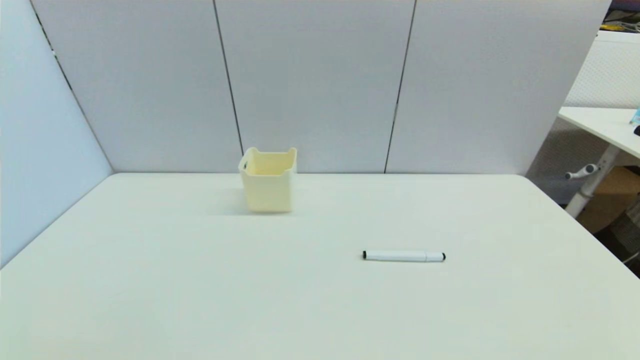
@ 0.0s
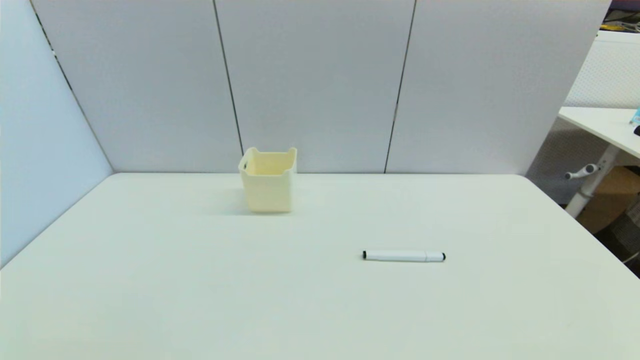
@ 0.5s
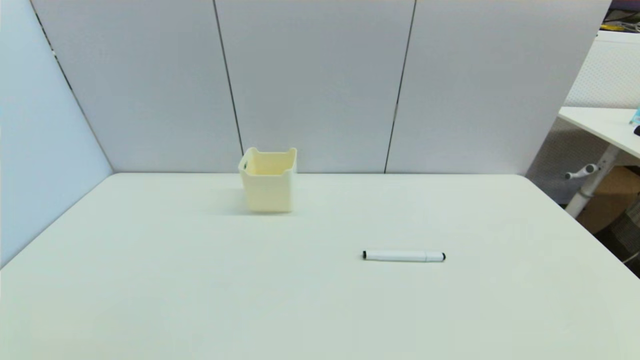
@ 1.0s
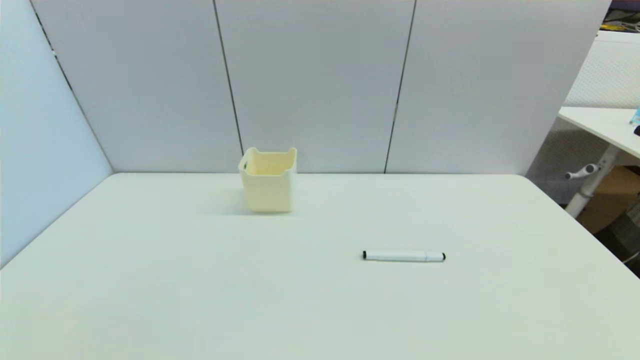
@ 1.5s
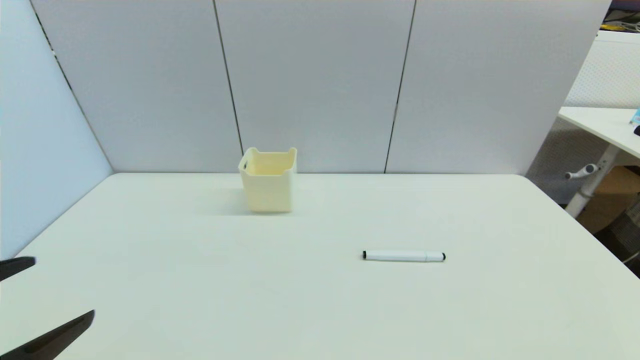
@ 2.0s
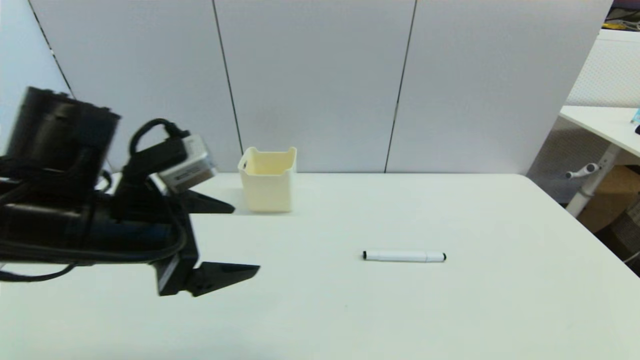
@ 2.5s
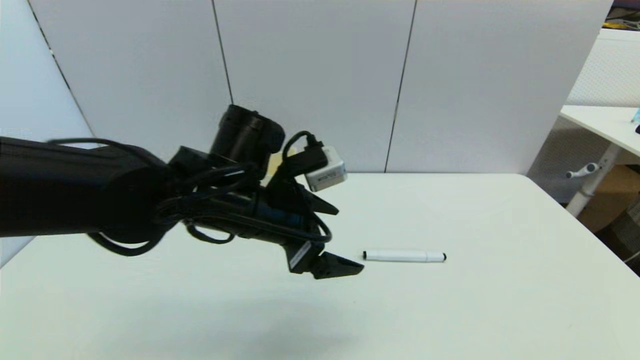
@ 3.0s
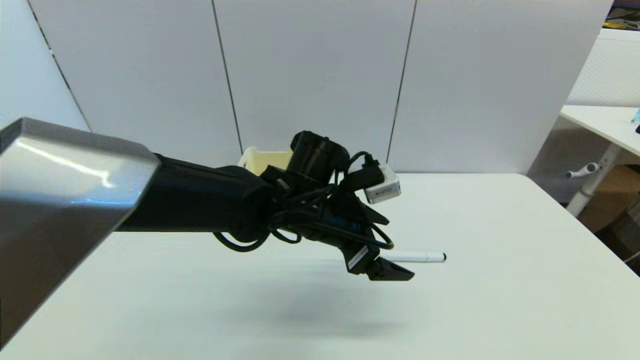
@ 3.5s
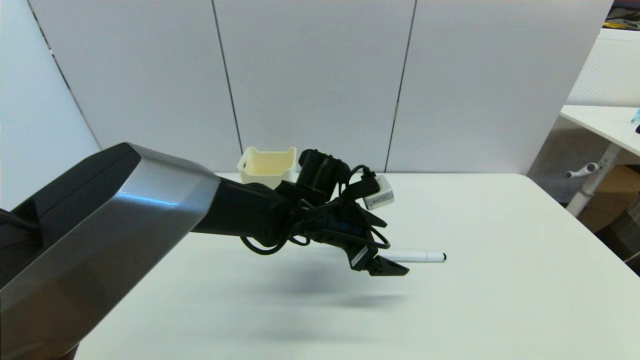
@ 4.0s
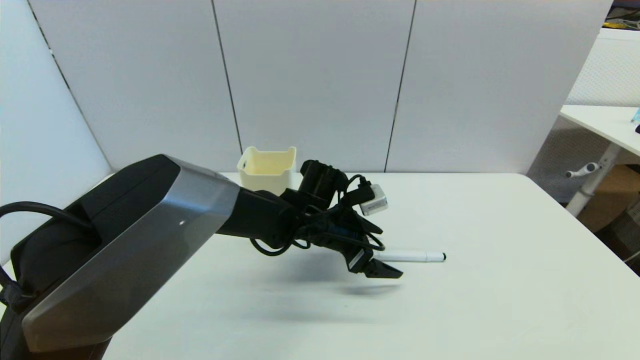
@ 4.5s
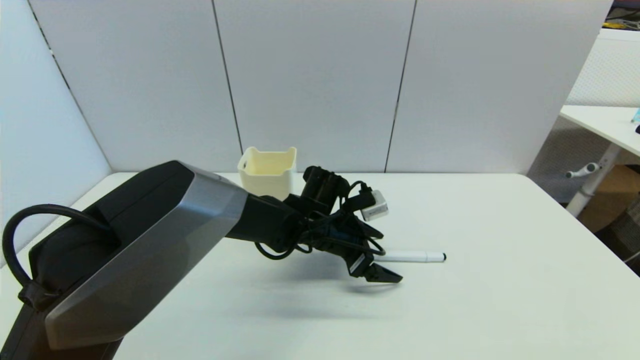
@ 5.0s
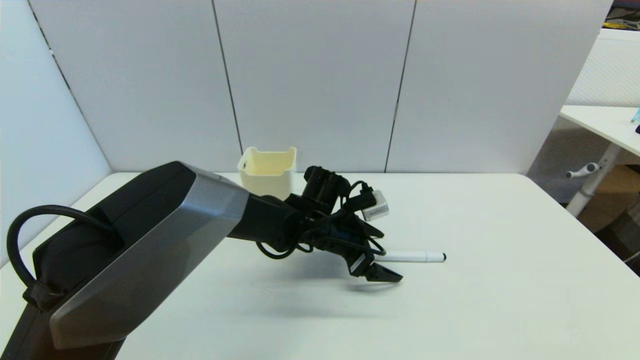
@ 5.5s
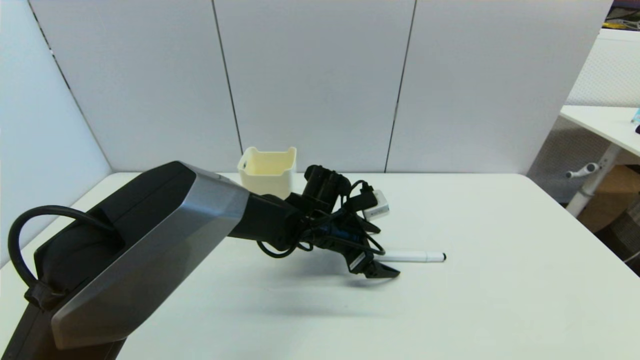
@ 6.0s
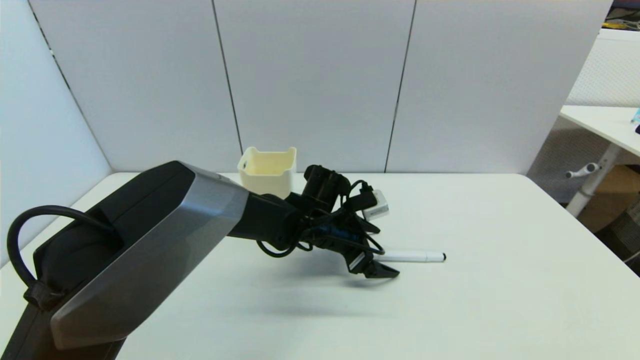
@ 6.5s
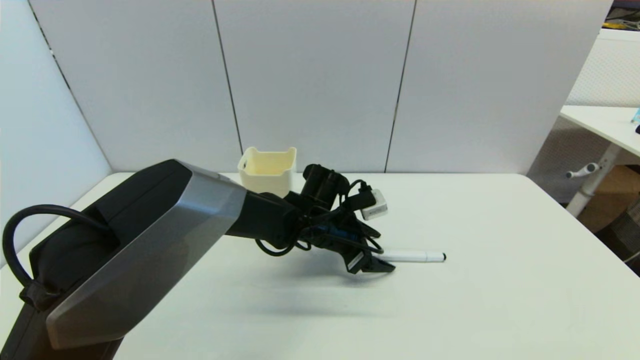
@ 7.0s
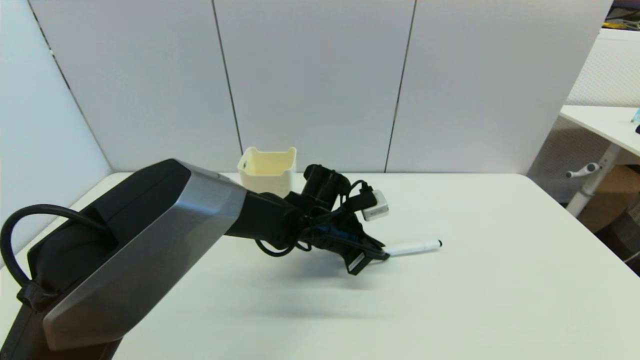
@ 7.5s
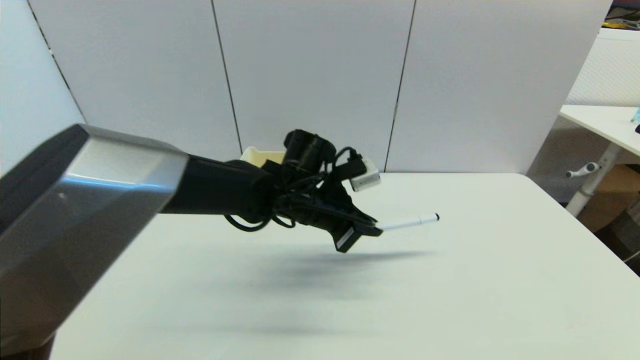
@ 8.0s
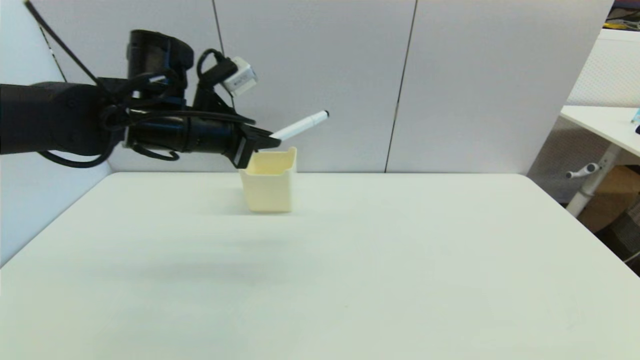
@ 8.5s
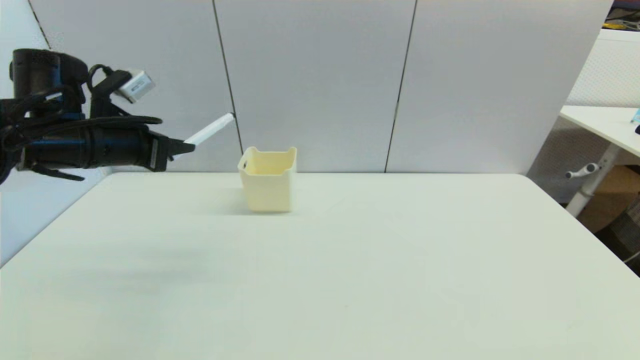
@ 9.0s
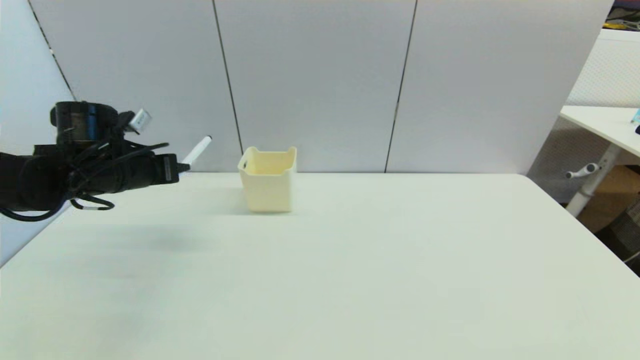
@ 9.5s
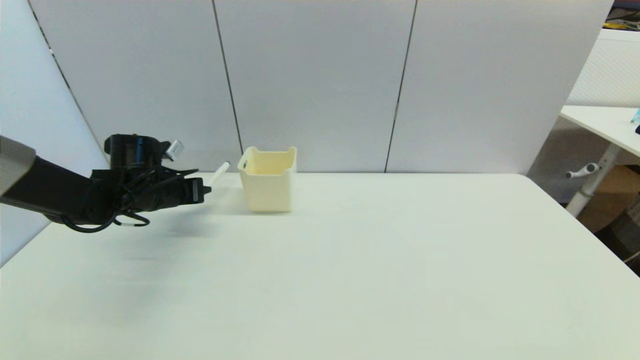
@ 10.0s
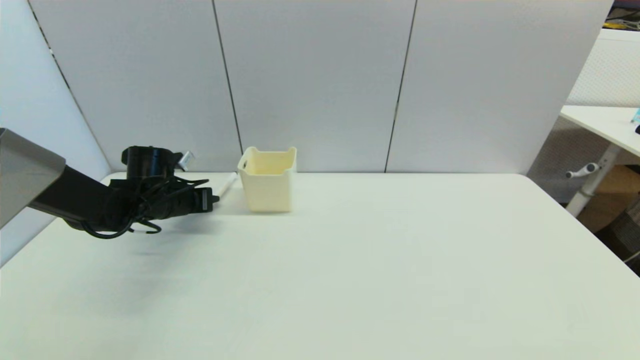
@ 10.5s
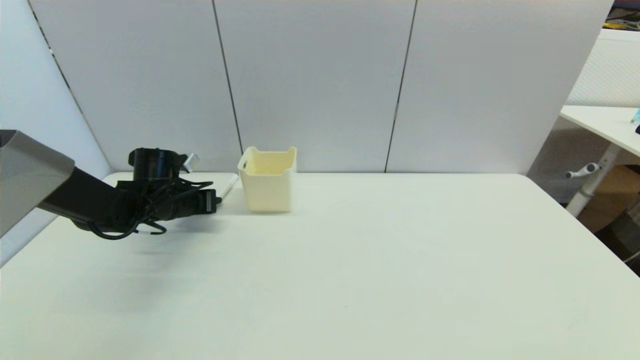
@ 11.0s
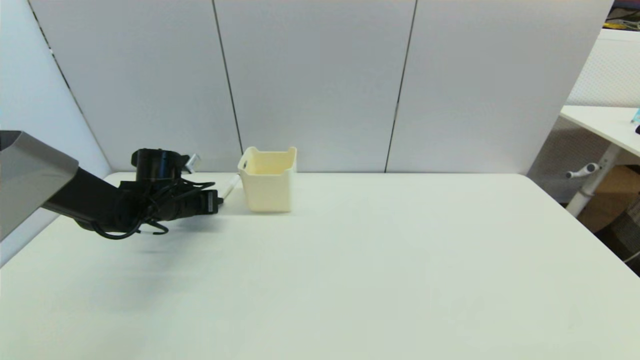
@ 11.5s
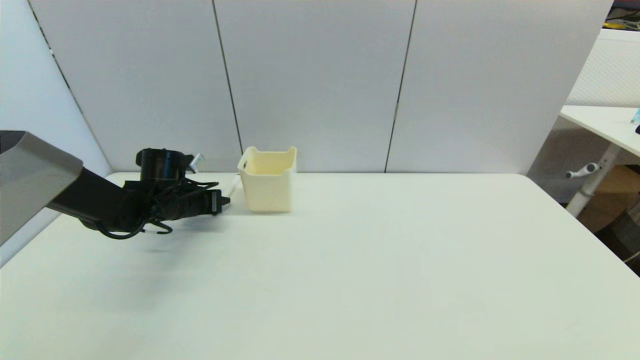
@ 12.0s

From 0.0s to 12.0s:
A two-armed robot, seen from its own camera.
Task of the whole recording: put the black marker in the designated position.
Step, from 2.0s to 7.0s: Grasp the Marker pen with left gripper.
From 0.0s to 2.0s: The left gripper travels upward and forward by about 15 cm.
From 2.0s to 4.0s: The left gripper shifts roughly 40 cm to the right and forward.
From 4.0s to 6.0s: The grippers make only small movements.
From 6.0s to 8.0s: The left gripper goes some 10 cm upward, and closes.
From 8.0s to 10.0s: The left gripper is displaced to the left by approximately 25 cm.
From 10.0s to 12.0s: The grippers move only a little.

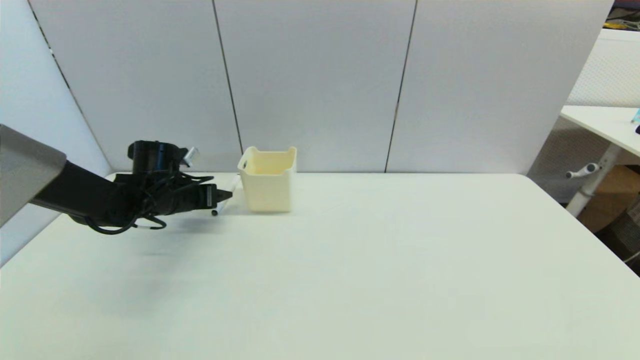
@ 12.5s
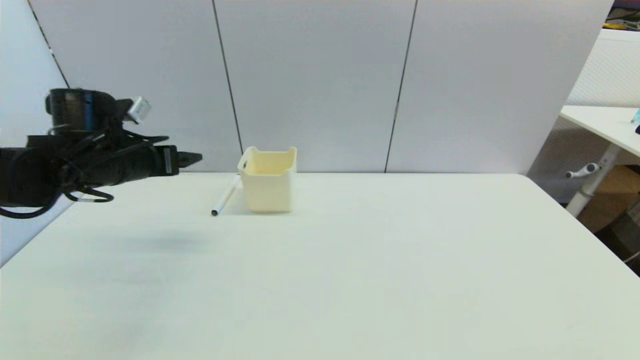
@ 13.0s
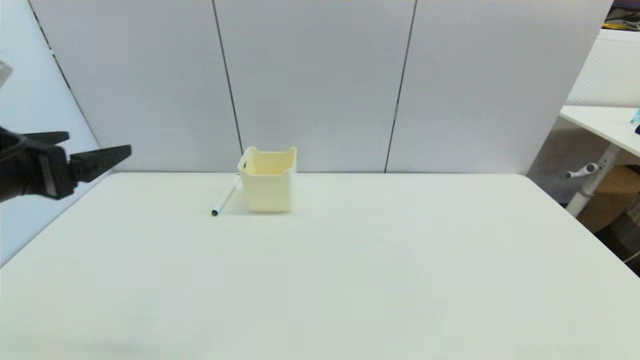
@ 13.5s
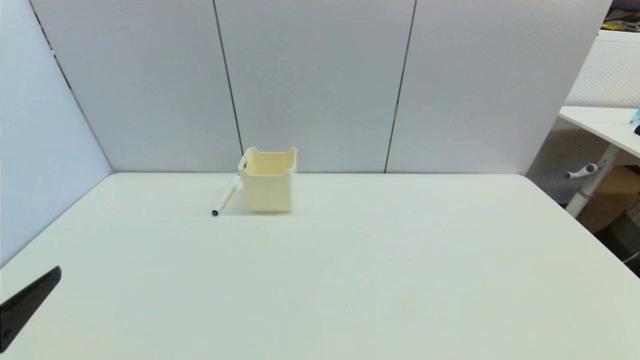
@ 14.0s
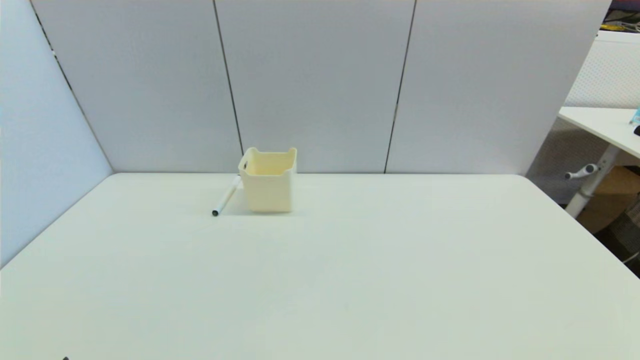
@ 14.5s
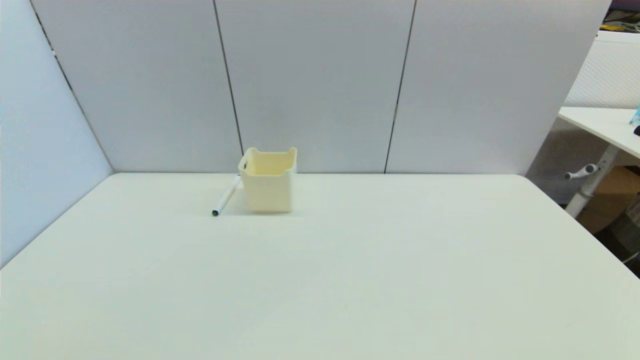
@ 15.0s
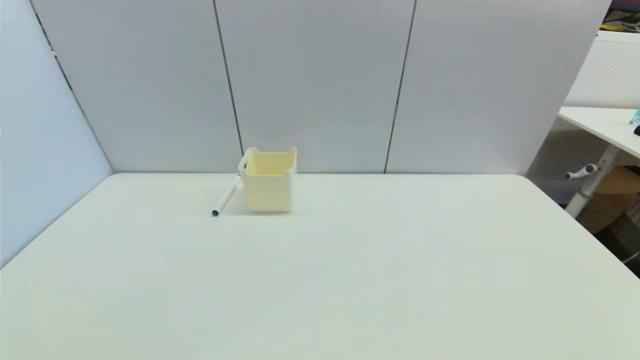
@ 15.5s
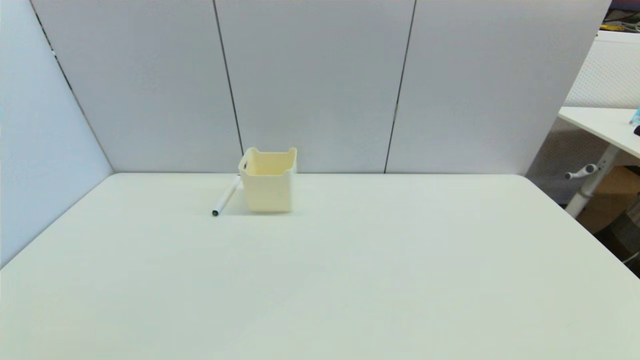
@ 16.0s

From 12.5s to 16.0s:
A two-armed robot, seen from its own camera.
Task of the whole recording: put the black marker in the designated position.
From 12.5s to 14.5s: The left gripper shifts approximately 40 cm backward.

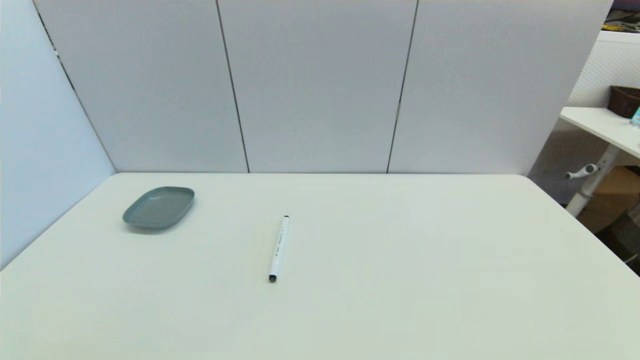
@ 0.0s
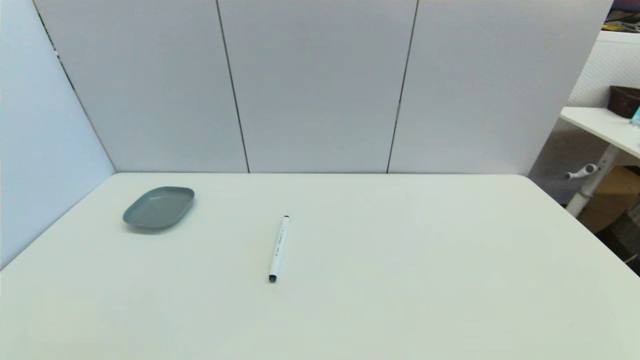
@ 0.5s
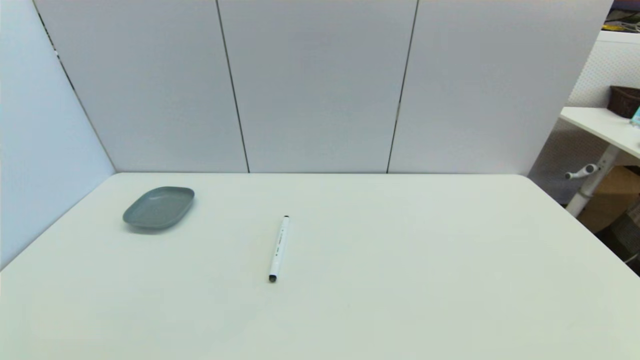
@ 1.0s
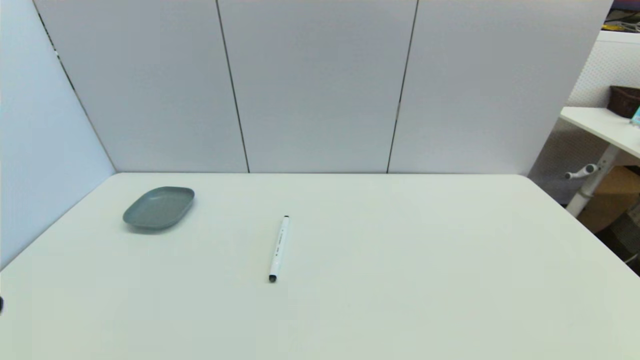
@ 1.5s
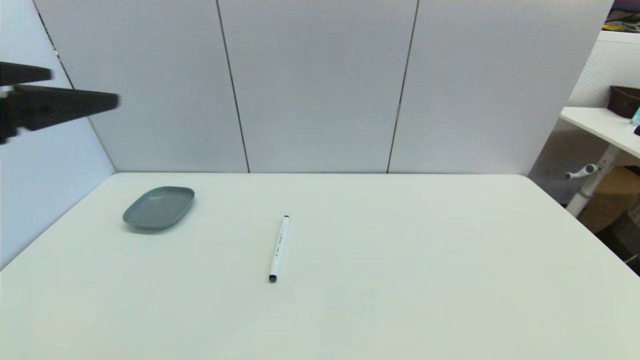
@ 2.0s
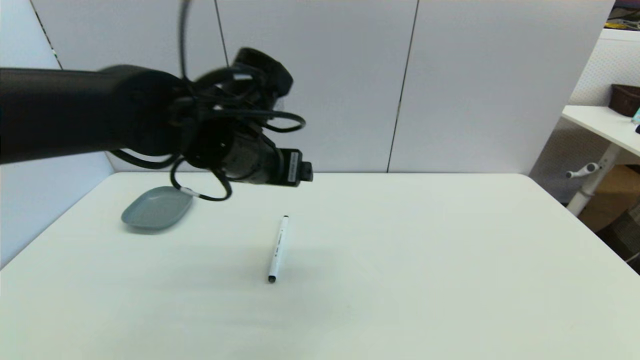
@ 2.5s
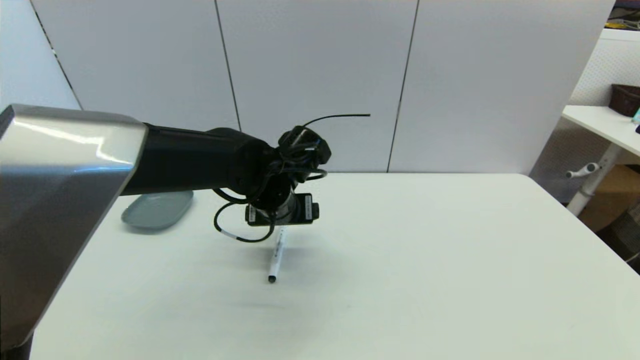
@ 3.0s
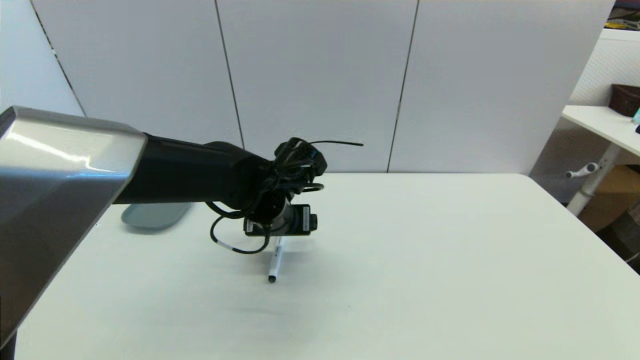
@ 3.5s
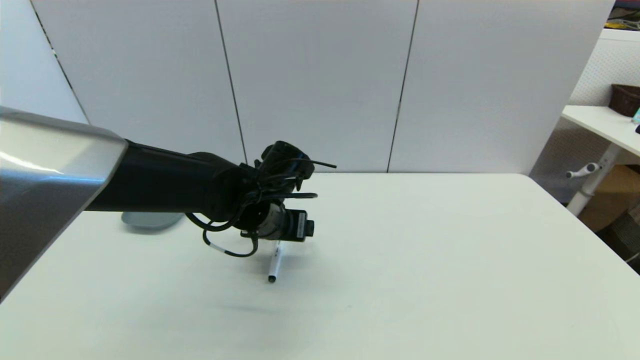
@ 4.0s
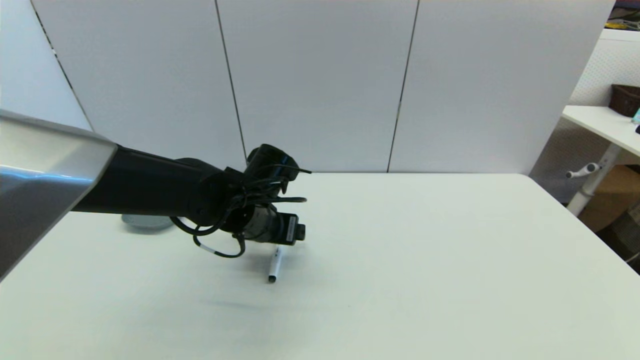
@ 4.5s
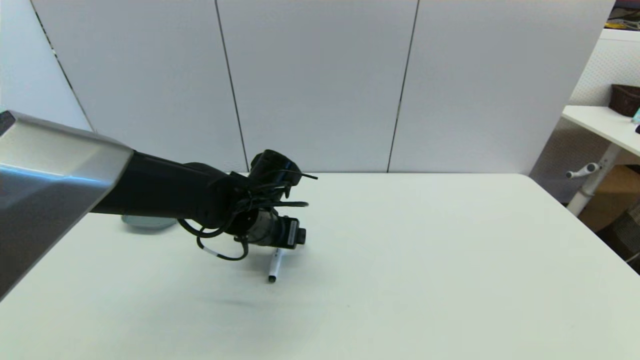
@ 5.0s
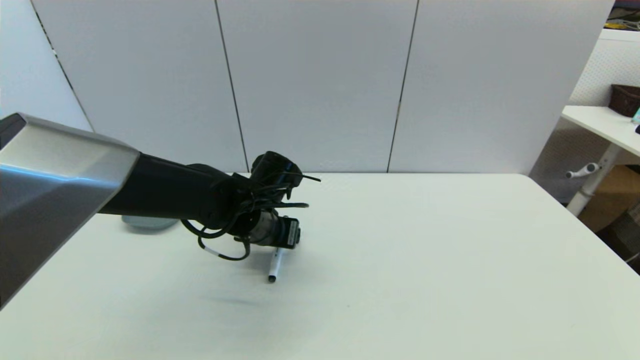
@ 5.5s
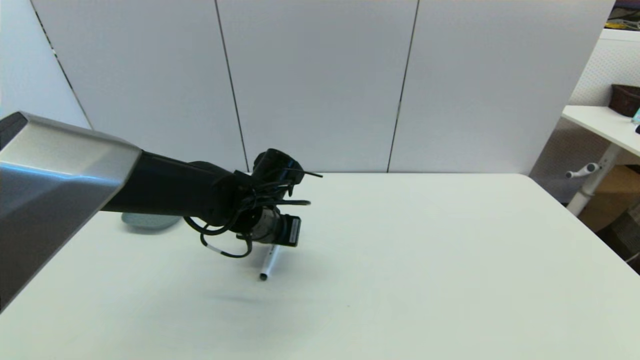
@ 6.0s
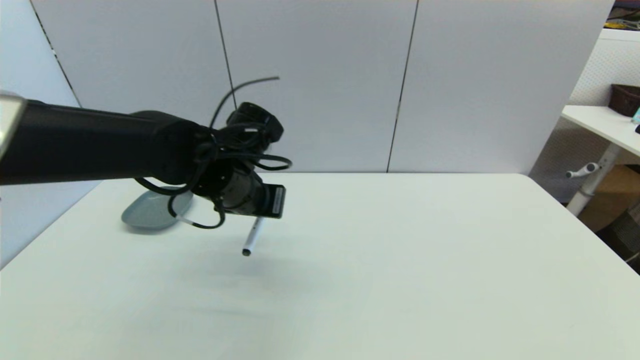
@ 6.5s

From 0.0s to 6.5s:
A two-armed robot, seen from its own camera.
Task of the whole recording: put the black marker in the designated position.
Step, from 1.5s to 5.5s: Grasp the Marker pen with left gripper.
From 0.0s to 2.0s: The left gripper shifts some 35 cm upward and forward.
From 2.0s to 4.5s: The left gripper travels downward, to the right and forward by roughly 30 cm.
From 4.5s to 6.5s: The left gripper moves upward, some 5 cm, and closes up.
